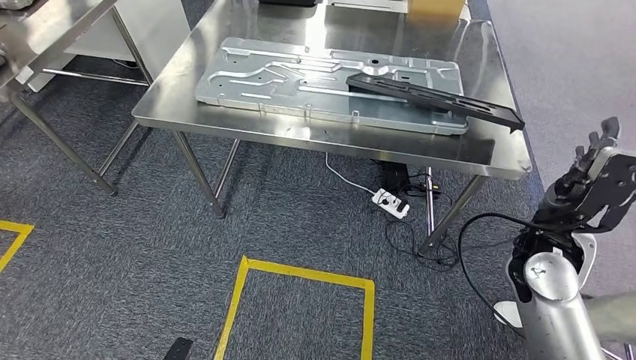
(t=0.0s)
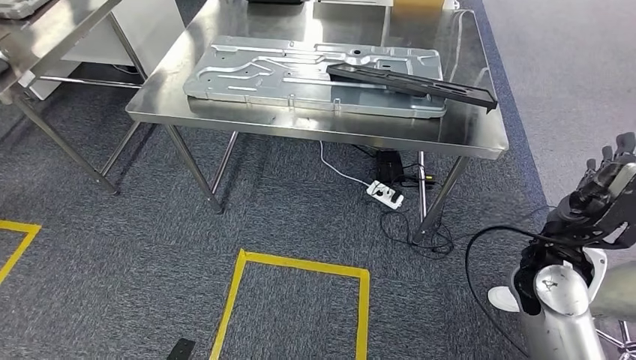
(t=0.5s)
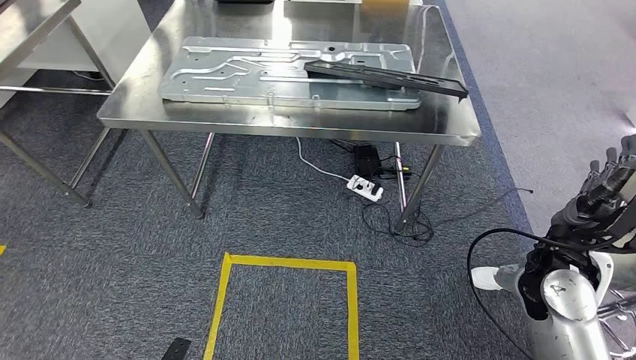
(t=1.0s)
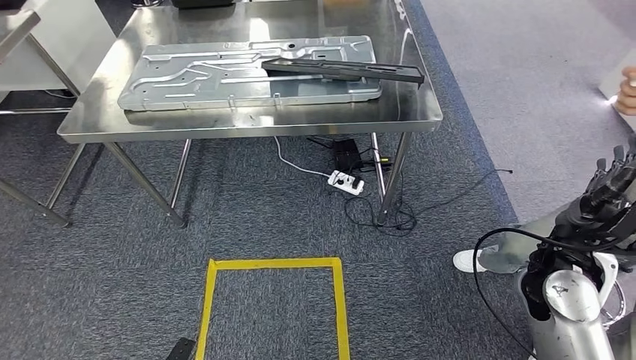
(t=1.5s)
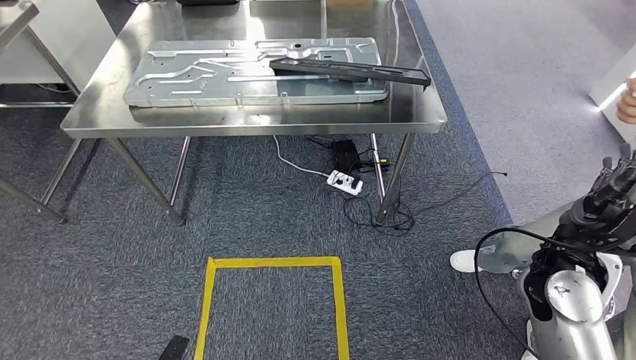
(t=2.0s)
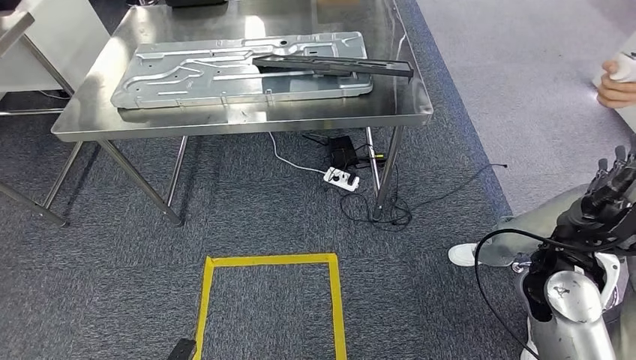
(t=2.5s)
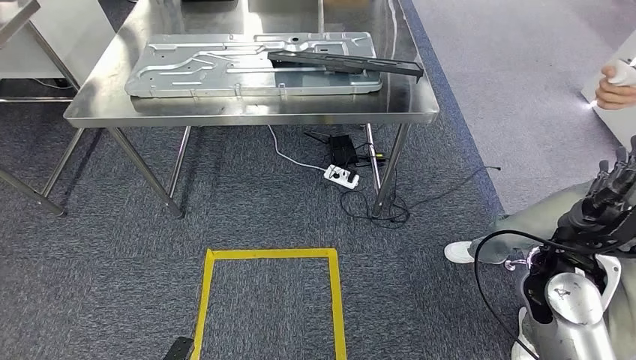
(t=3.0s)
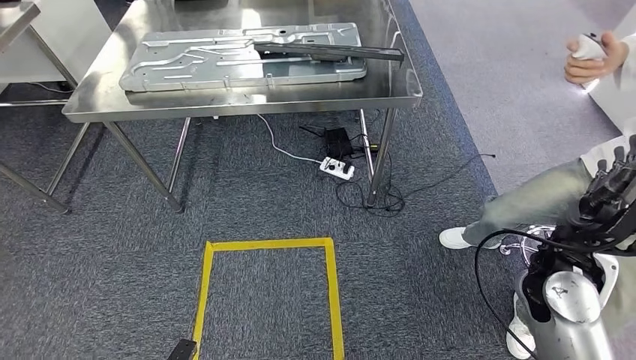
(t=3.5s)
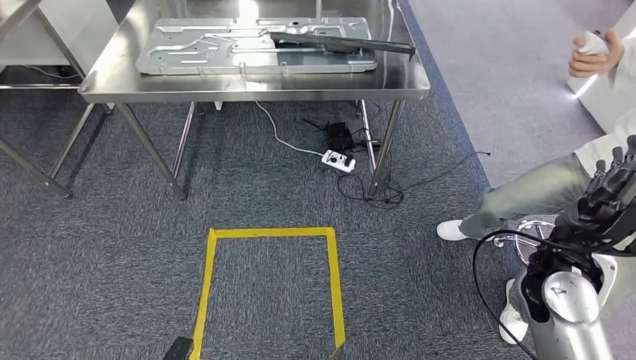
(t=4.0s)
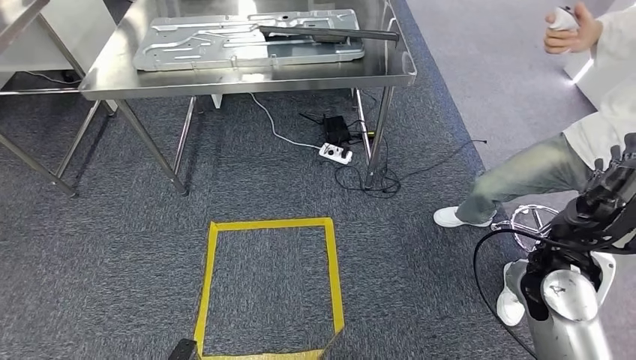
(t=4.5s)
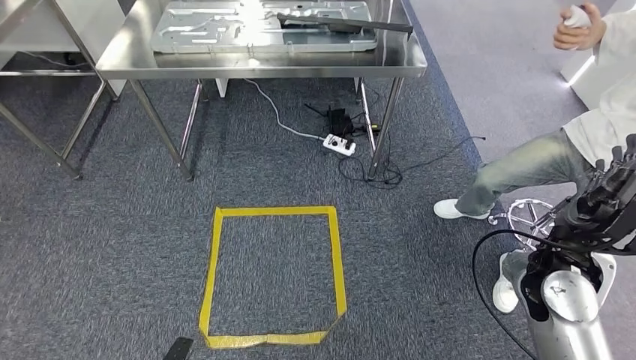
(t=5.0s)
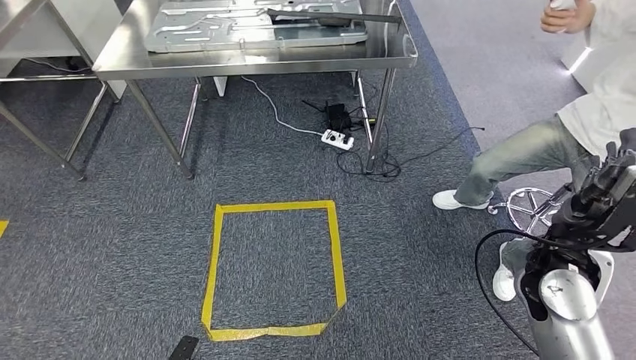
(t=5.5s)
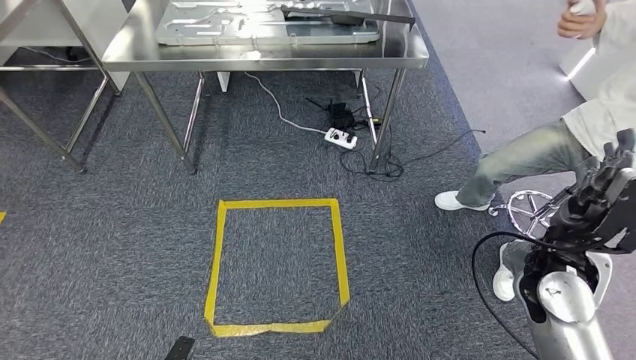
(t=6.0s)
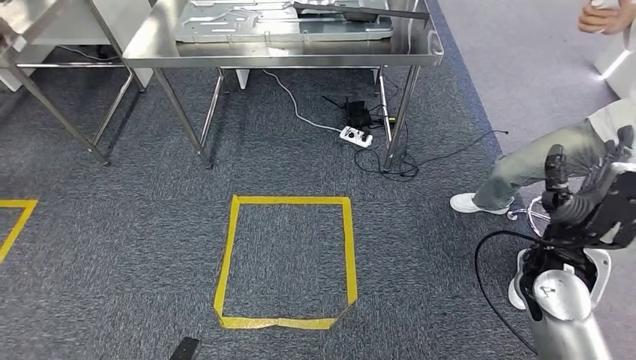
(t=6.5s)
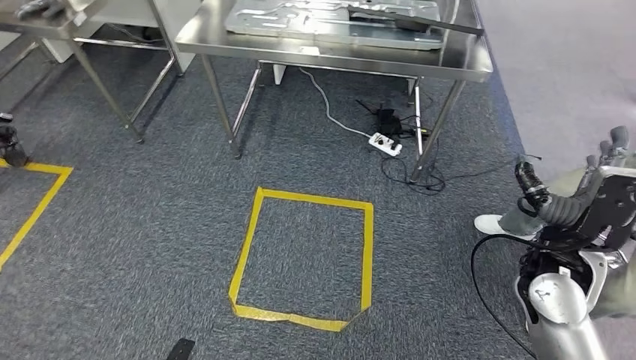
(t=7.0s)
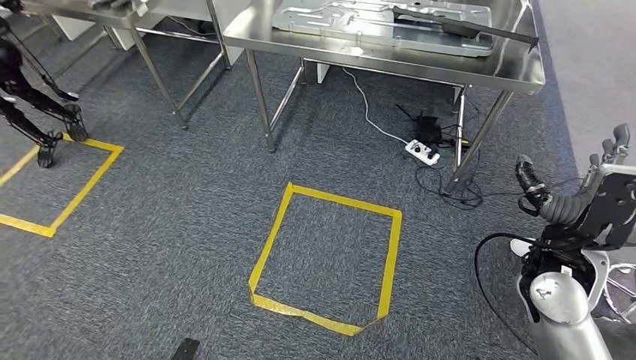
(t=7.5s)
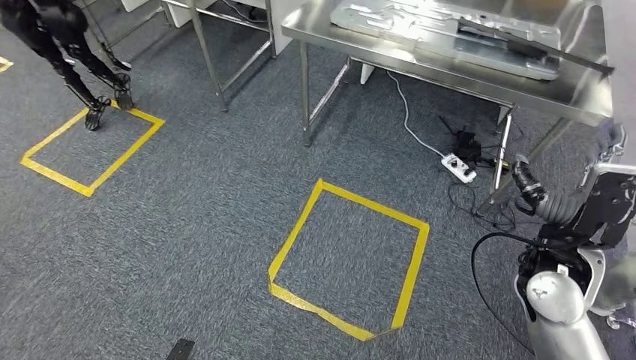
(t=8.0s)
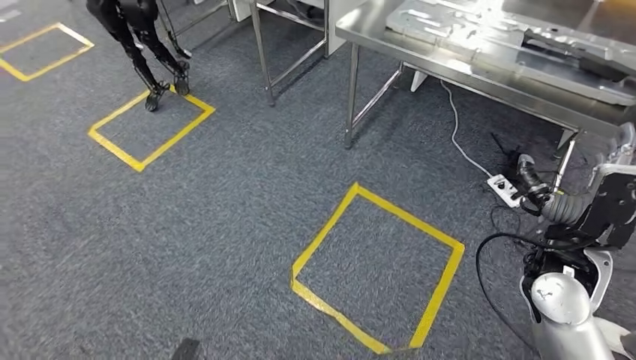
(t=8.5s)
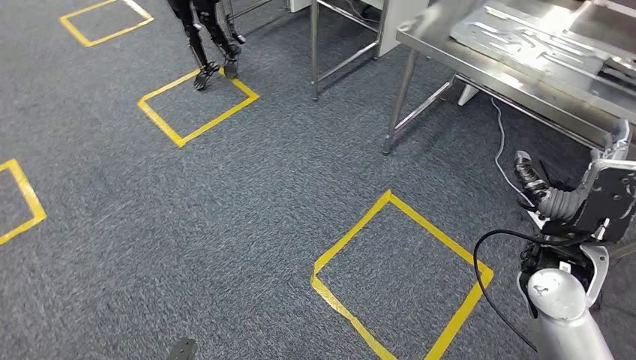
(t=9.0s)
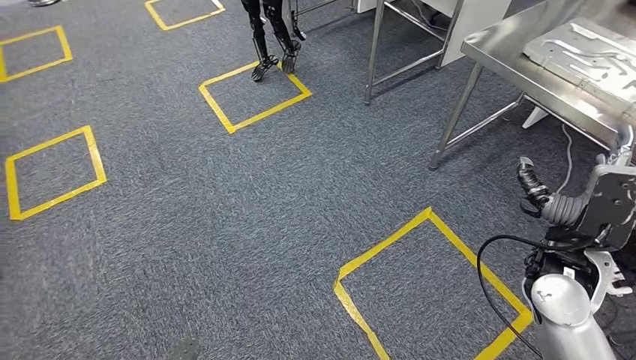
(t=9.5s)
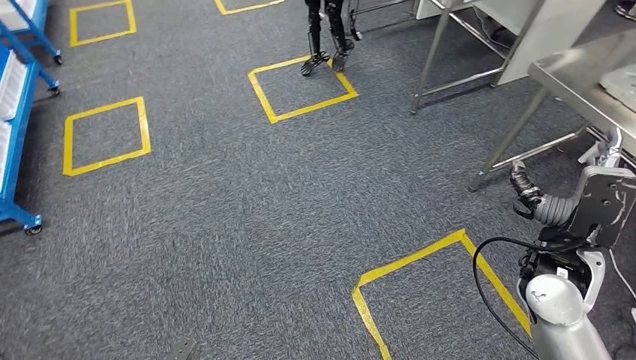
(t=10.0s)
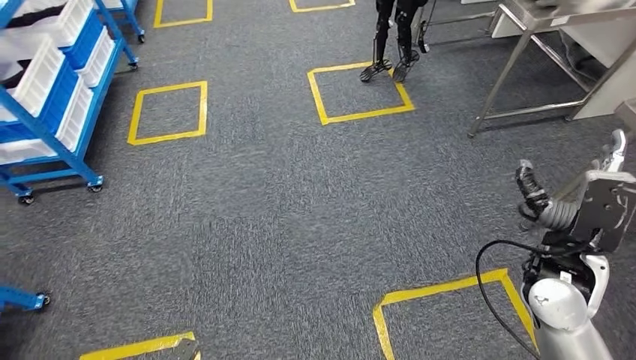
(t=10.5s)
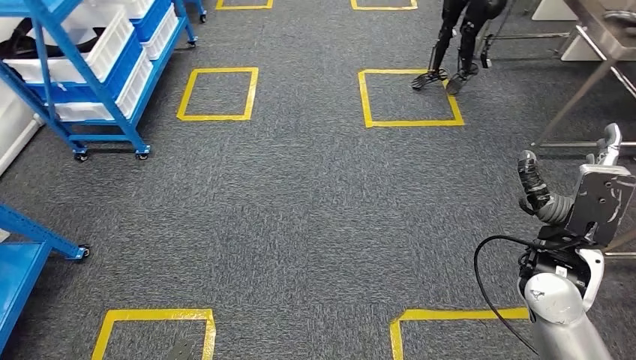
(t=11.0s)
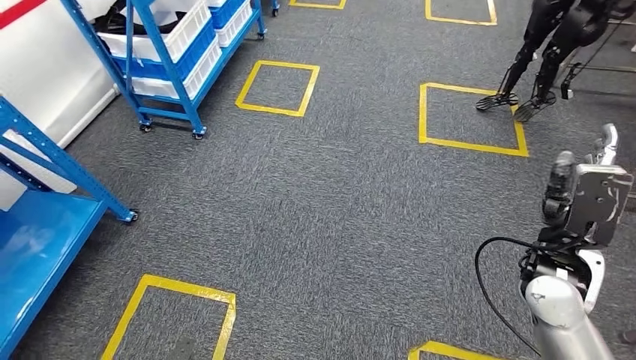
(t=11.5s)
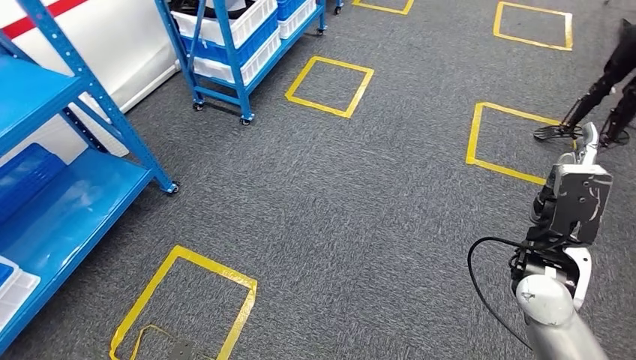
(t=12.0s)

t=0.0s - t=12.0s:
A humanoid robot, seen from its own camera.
Step, t=0.0s - t=2.0s: Insert the large material into the corresponding slot on the workbench.

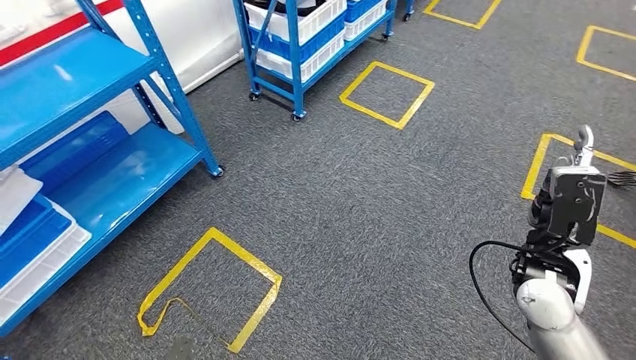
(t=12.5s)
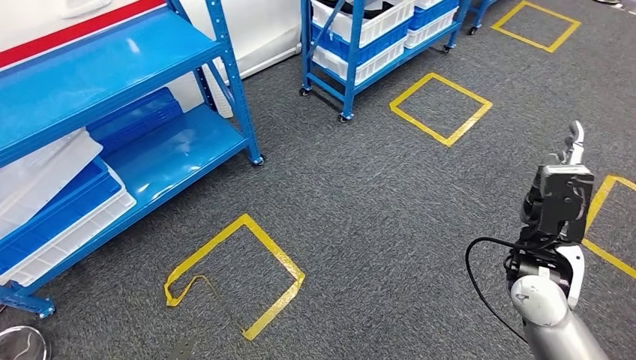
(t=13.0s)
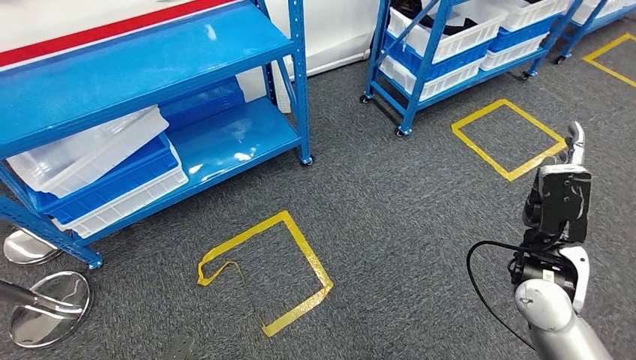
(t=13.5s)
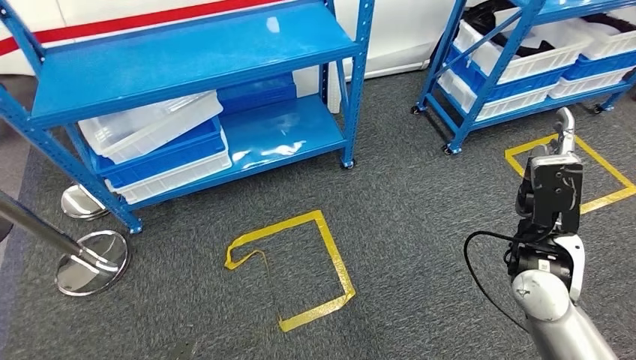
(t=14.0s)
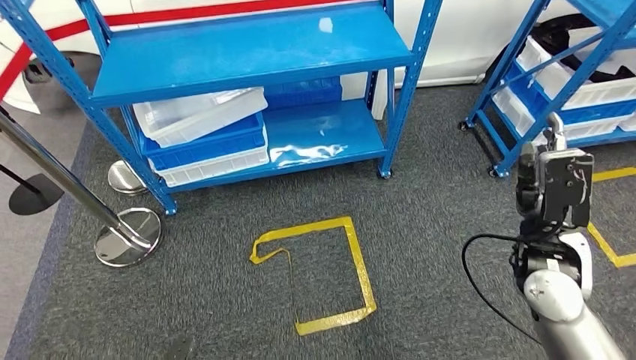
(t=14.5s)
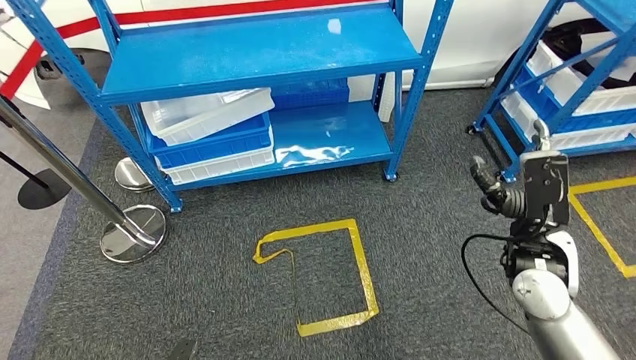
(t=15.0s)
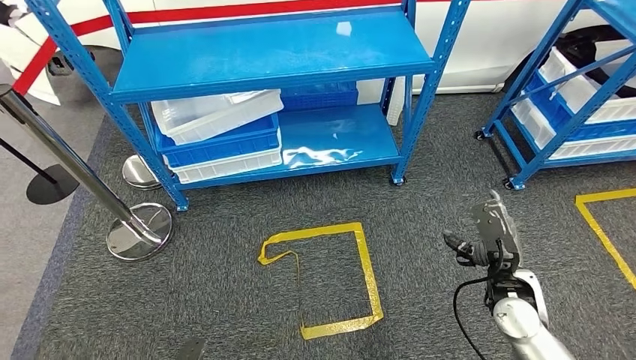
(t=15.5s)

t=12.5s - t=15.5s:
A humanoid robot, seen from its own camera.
Step, t=12.5s - t=15.5s: Move to the initial position of the shelf.
